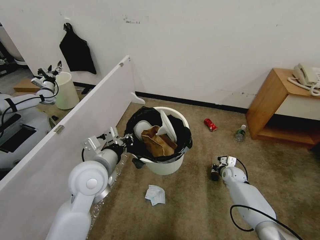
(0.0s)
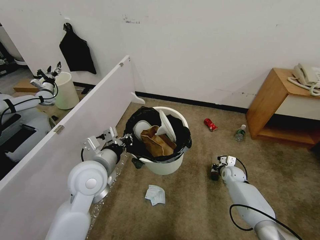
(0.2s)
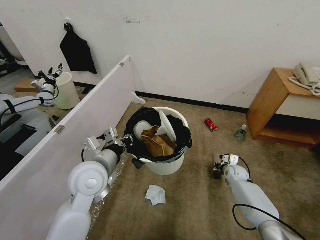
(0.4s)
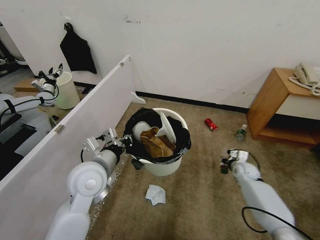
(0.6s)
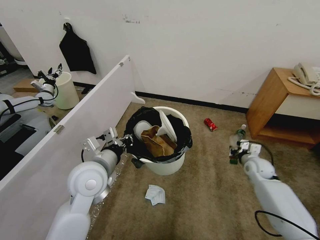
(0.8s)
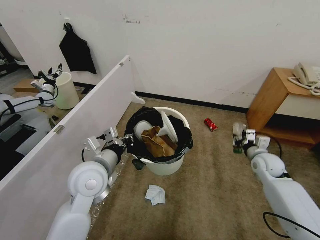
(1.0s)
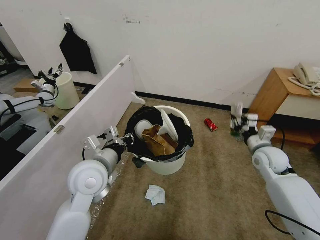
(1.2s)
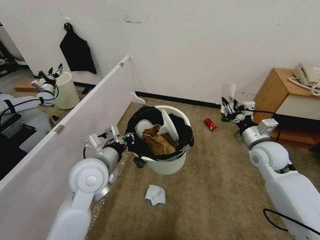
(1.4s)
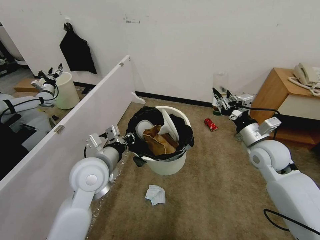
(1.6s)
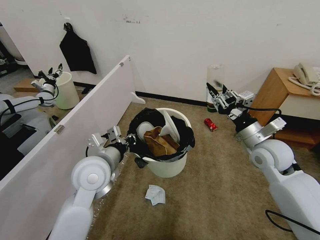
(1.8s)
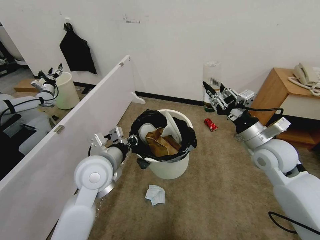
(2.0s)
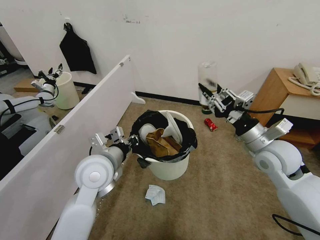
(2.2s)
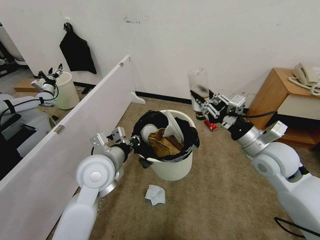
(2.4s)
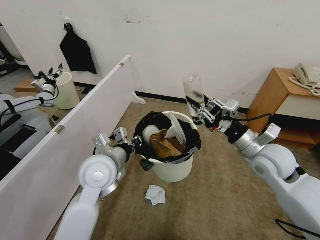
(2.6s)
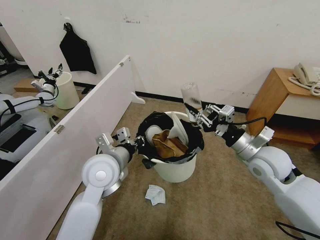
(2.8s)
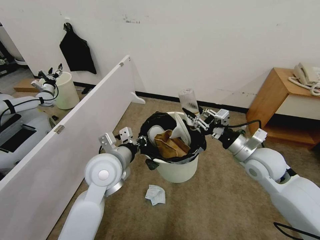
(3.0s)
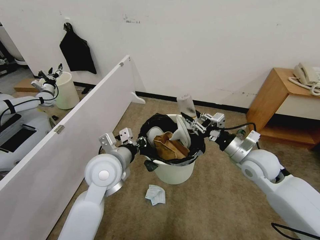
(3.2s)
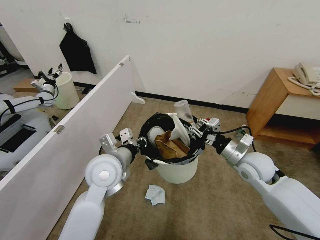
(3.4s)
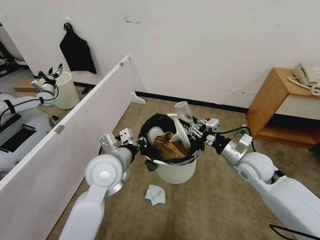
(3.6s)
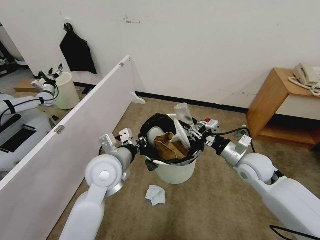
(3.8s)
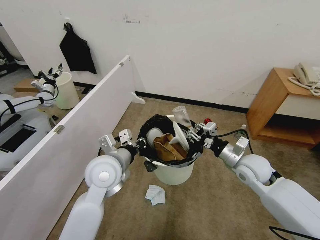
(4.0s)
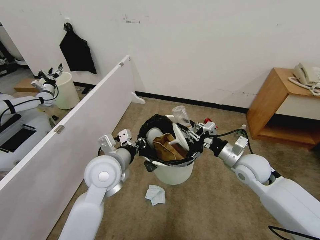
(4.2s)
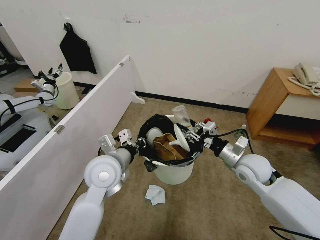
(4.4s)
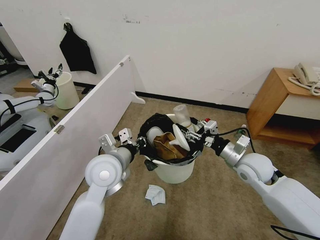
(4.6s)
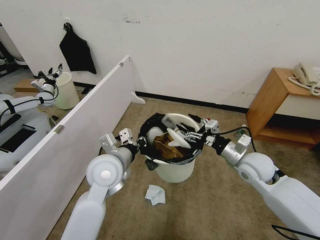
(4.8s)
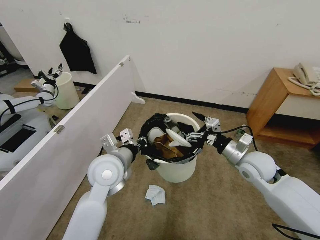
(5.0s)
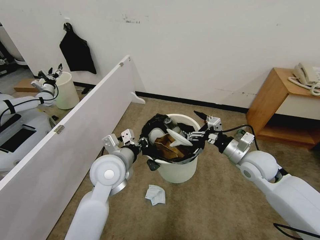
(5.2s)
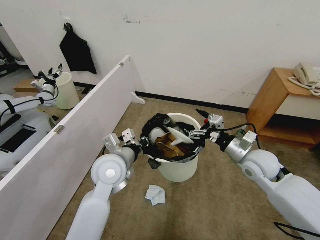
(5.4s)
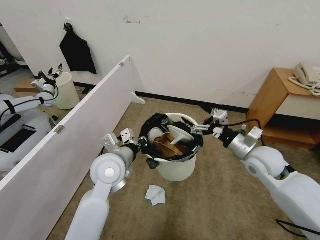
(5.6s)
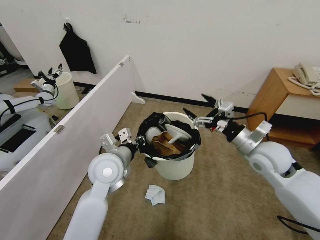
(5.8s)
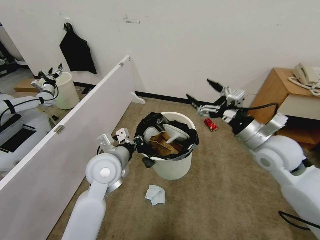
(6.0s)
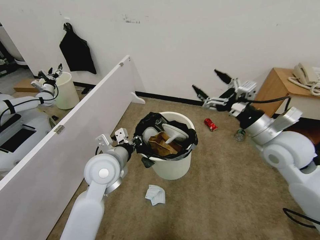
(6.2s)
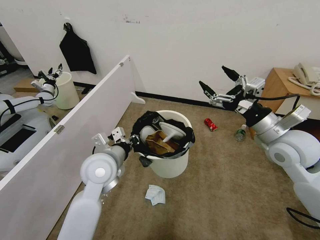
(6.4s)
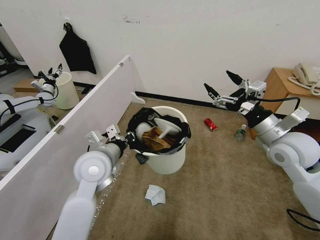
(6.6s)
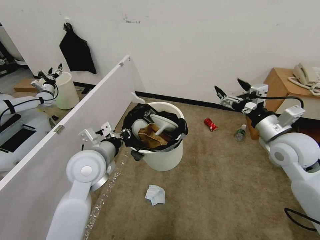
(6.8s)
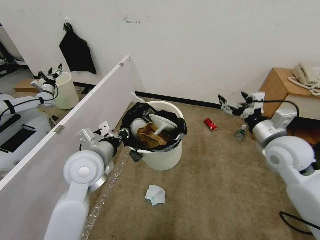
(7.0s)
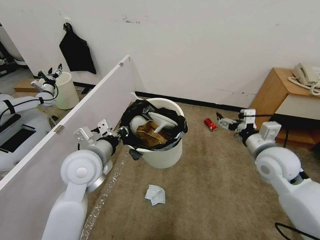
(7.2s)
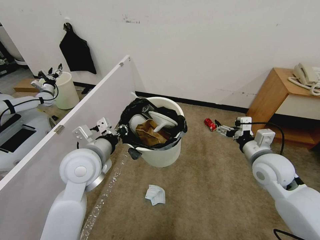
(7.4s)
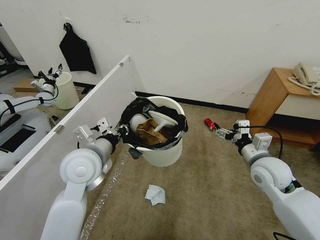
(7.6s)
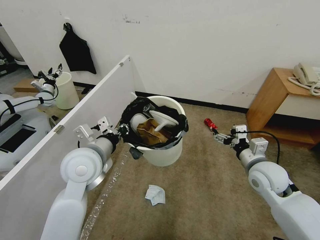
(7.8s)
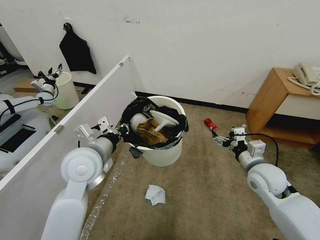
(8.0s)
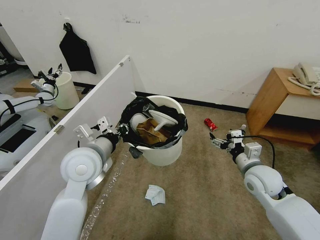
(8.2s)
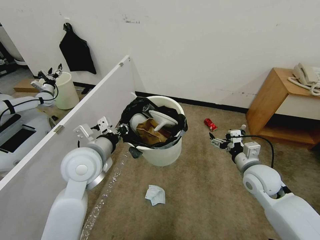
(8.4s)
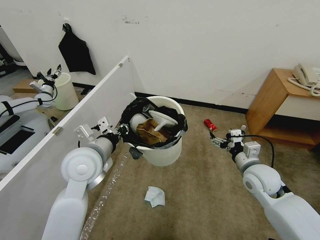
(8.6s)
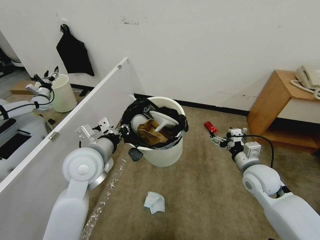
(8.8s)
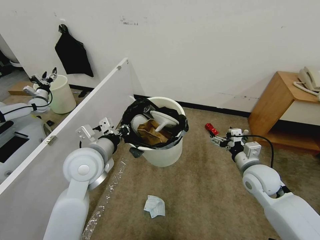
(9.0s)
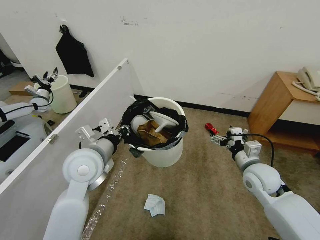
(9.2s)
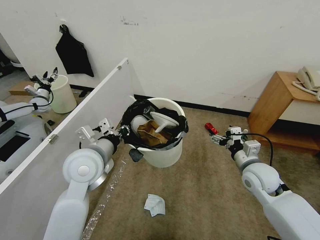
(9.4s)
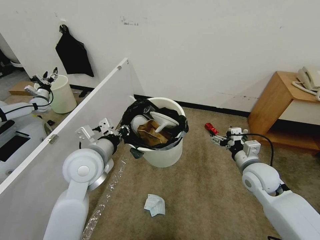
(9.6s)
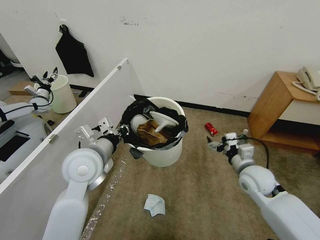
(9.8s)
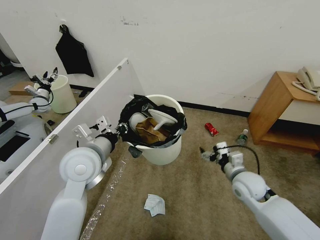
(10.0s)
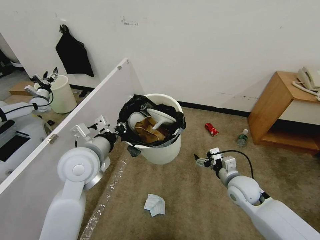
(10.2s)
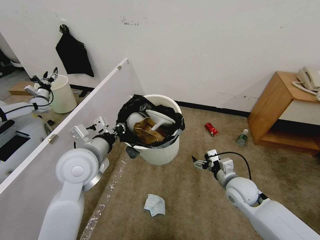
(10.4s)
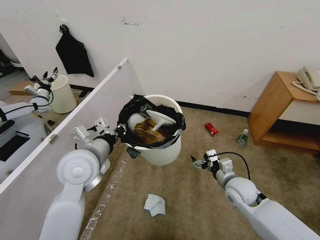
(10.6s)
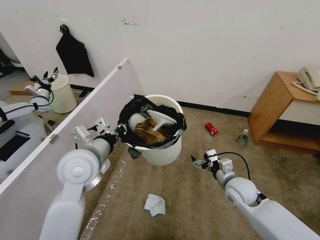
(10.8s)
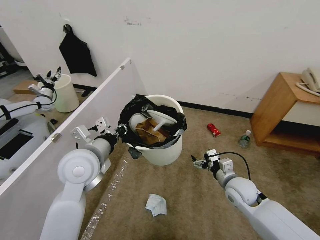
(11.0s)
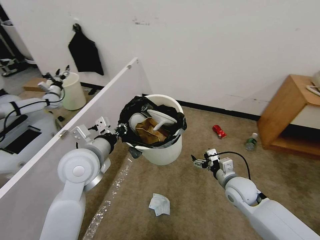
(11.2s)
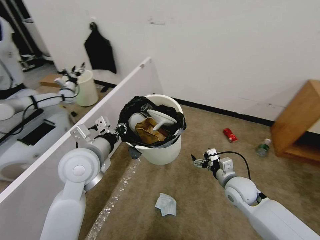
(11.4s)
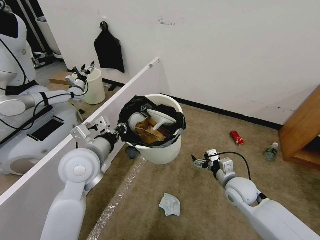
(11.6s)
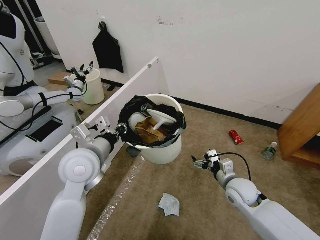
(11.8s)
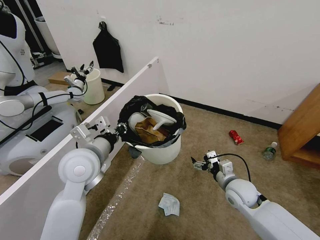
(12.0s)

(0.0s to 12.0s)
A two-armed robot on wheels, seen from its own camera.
Task of the whole recording: Pick up the trash bin, then pick up the garbage from the floor and place it into the trash bin.
0.0s - 1.6s: The right gripper travels upward by approximately 30 cm.
3.0s - 4.4s: The right gripper changes place by some 5 cm.
4.4s - 6.0s: The right gripper moves upward, some 10 cm, and opens.
6.0s - 7.6s: The right gripper travels downward by some 10 cm. Meanwhile the left gripper changes place by about 5 cm.
7.6s - 9.0s: There are only small adjustments of the grippers.
9.0s - 10.4s: The right gripper moves downward, roughly 5 cm.

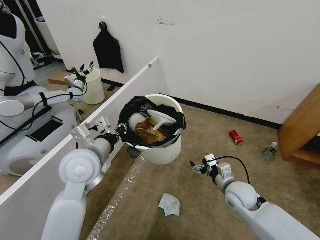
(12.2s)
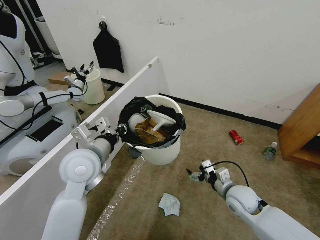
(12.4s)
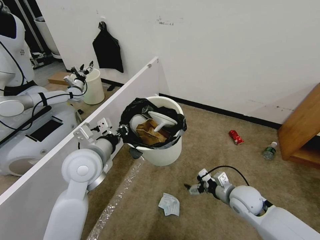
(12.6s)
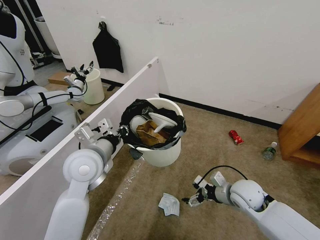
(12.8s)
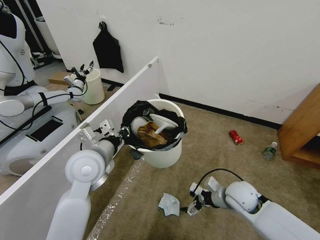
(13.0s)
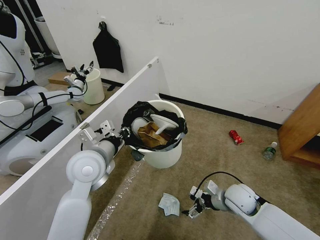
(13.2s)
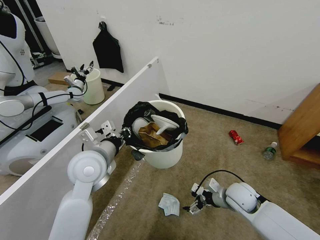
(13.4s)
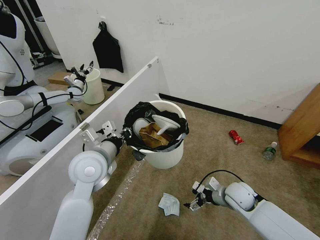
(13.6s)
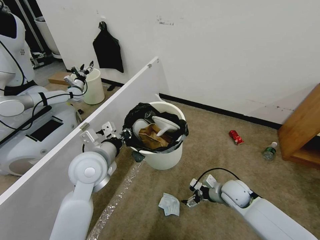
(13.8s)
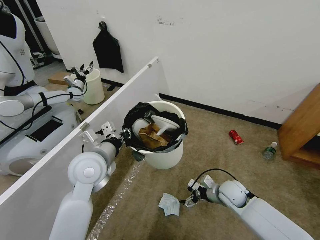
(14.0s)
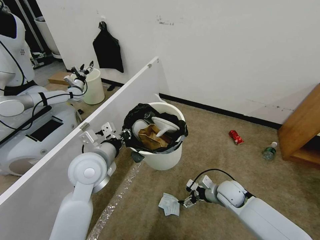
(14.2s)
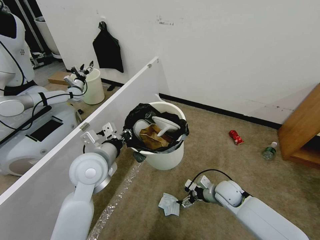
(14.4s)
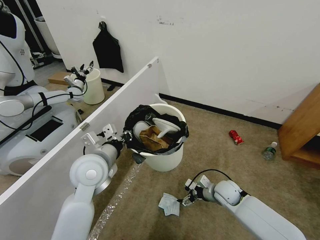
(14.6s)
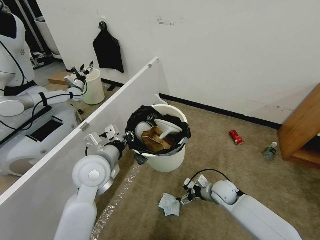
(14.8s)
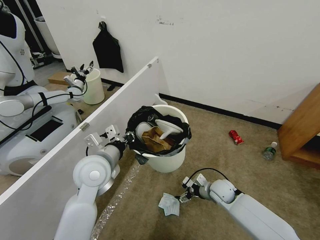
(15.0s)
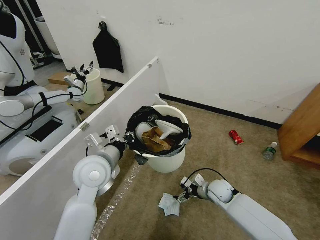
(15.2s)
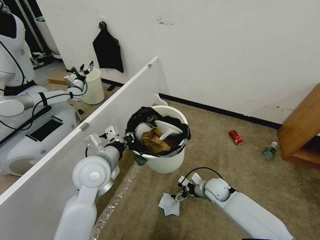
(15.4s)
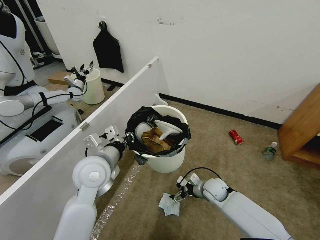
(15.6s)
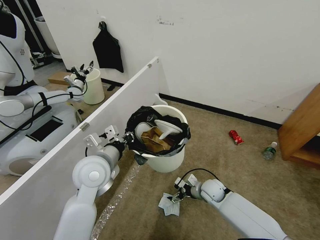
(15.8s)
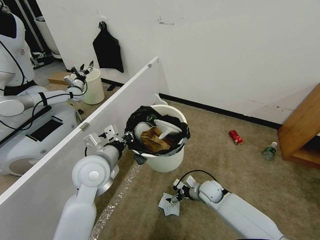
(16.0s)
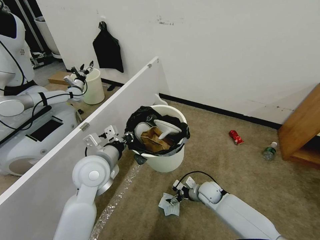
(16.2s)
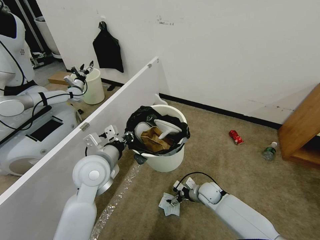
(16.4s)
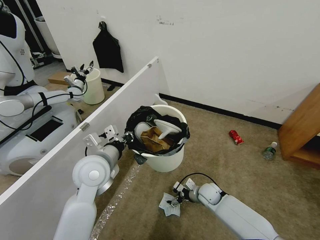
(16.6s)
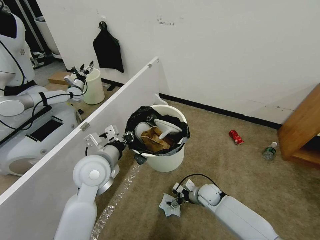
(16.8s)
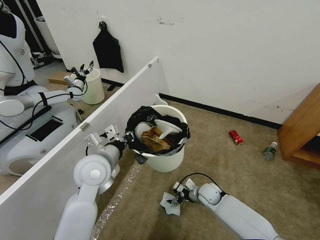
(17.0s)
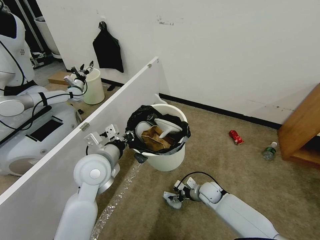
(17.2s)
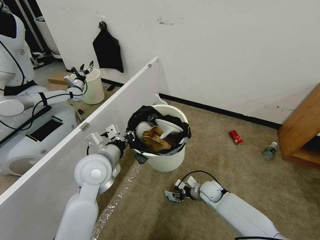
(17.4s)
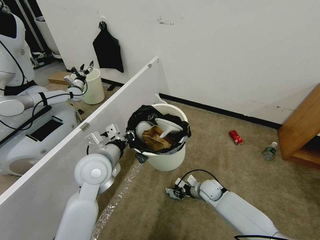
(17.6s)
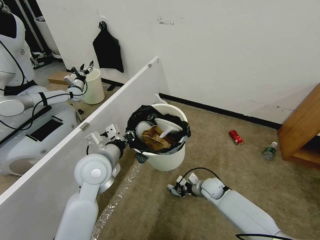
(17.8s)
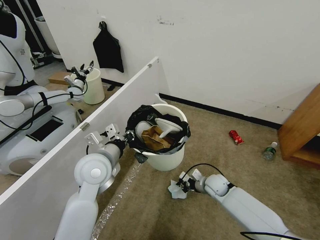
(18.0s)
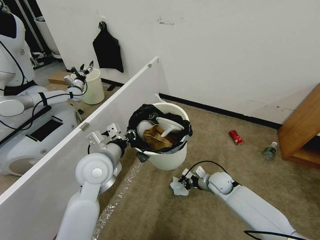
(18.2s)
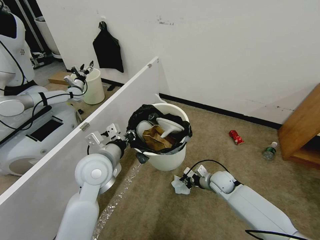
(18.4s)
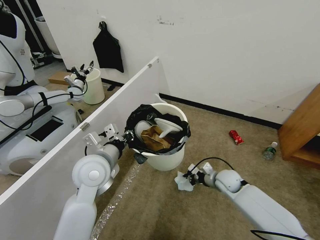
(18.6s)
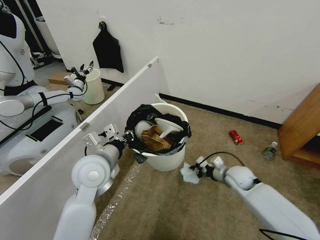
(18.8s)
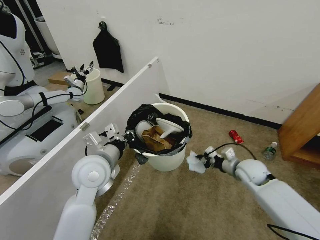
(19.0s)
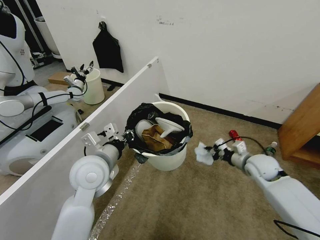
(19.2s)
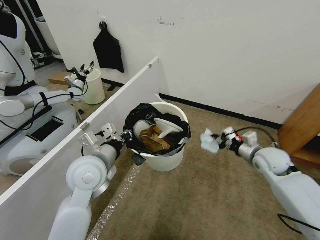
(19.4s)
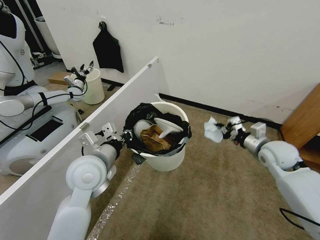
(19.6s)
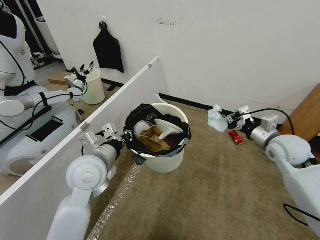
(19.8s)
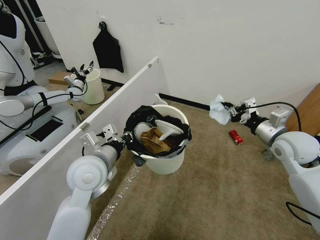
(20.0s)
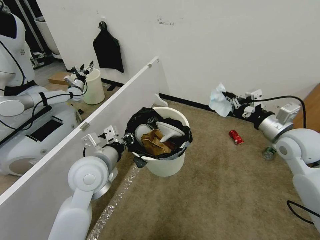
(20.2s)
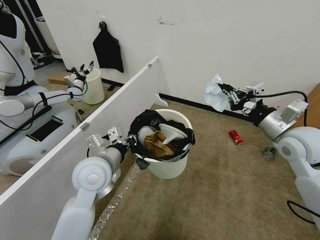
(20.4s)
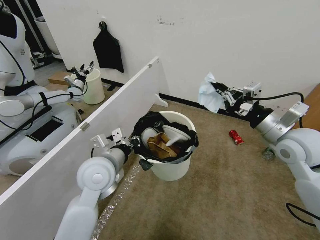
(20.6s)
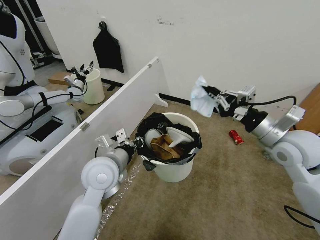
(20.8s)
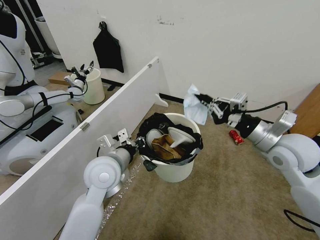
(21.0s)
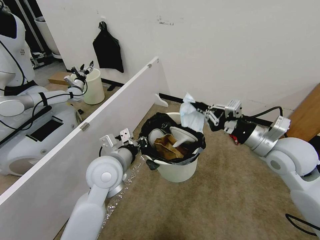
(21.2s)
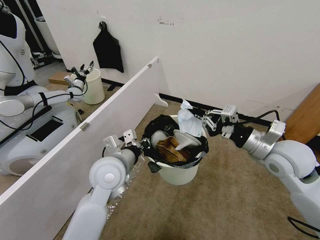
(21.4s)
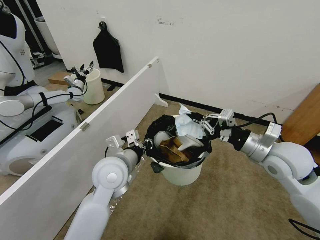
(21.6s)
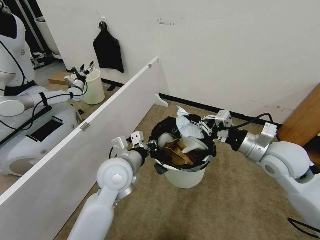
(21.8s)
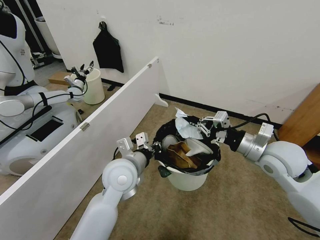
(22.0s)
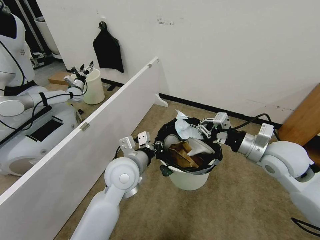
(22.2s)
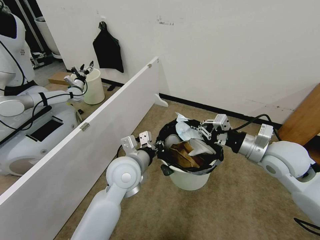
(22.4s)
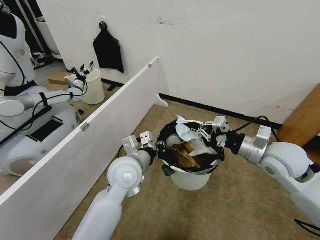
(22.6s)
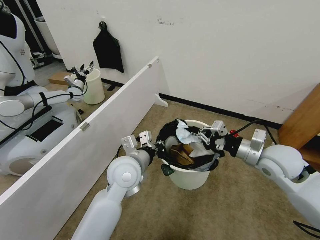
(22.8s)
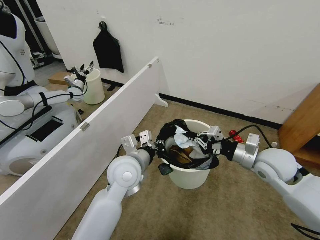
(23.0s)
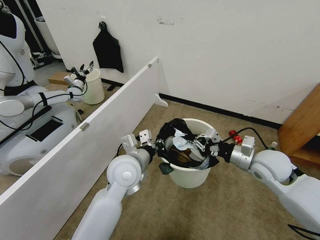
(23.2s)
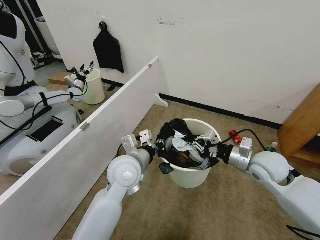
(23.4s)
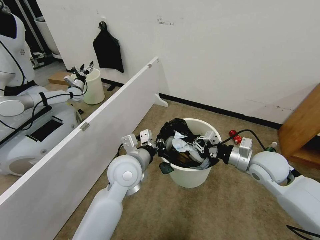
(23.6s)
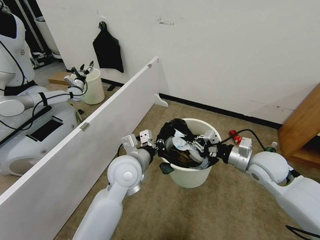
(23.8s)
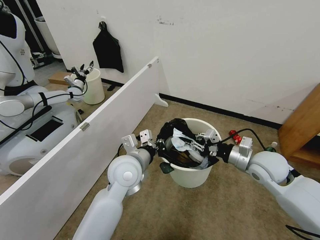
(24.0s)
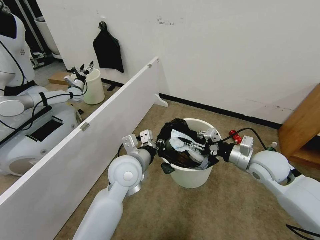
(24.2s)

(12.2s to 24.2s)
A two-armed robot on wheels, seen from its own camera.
Task of the whole recording: Pick up the trash bin, then pick up the garbage from the floor and place it into the trash bin.
13.8s - 15.2s: The right gripper is displaced downward by about 5 cm.
15.2s - 16.6s: There are only small adjustments of the grippers.
16.6s - 18.2s: The right gripper goes about 5 cm upward, and closes its fingers.
18.2s - 19.8s: The right gripper goes approximately 30 cm upward and to the right.
19.8s - 21.2s: The right gripper moves to the left, backward and upward, roughly 10 cm.
21.2s - 22.6s: The left gripper shifts approximately 5 cm to the right.
22.6s - 24.2s: The right gripper shifts roughly 5 cm downward, and opens its fingers.
